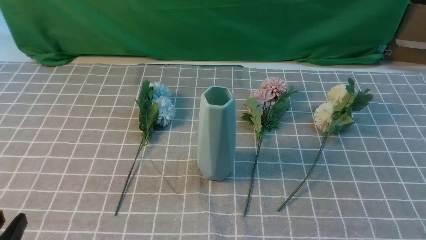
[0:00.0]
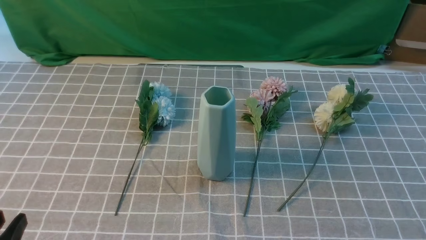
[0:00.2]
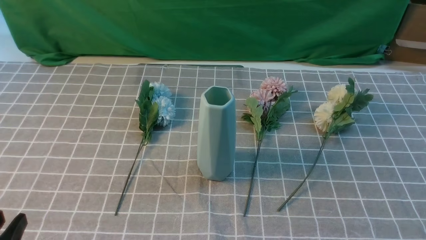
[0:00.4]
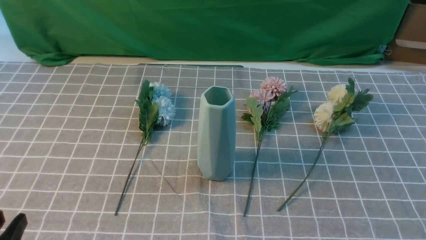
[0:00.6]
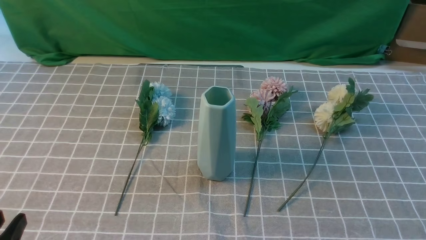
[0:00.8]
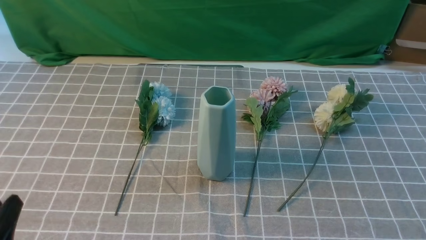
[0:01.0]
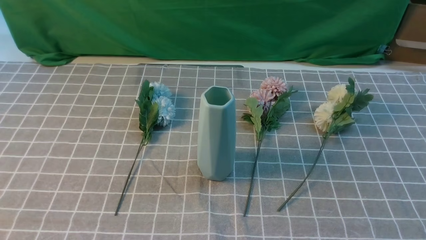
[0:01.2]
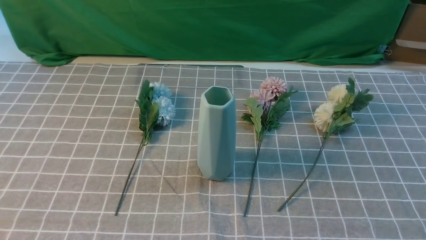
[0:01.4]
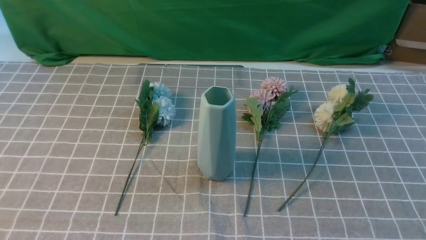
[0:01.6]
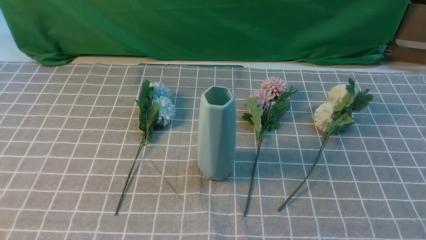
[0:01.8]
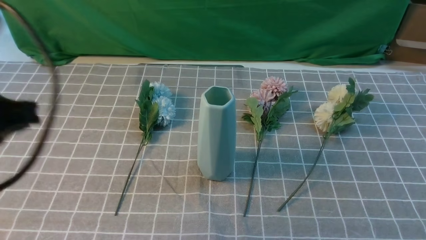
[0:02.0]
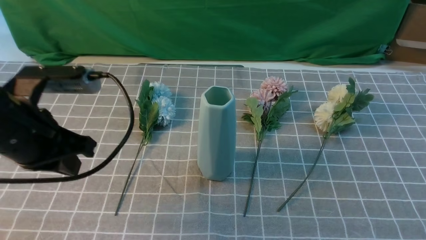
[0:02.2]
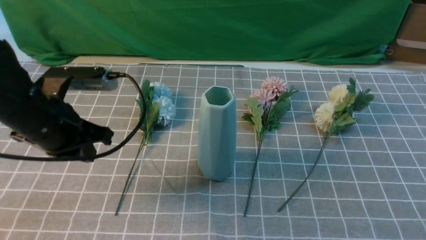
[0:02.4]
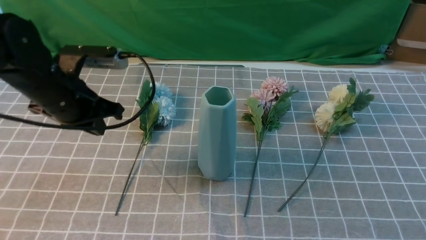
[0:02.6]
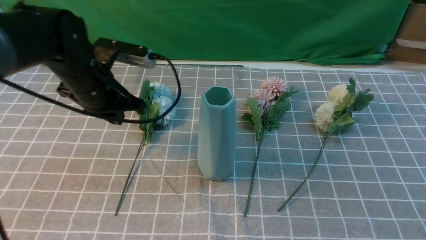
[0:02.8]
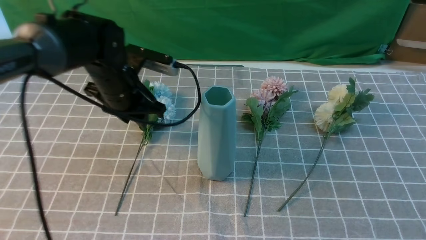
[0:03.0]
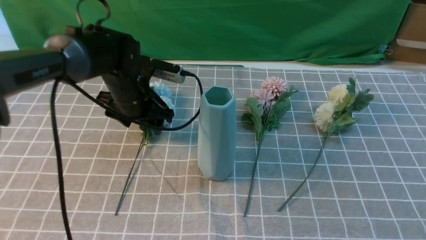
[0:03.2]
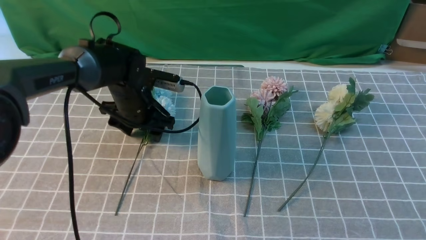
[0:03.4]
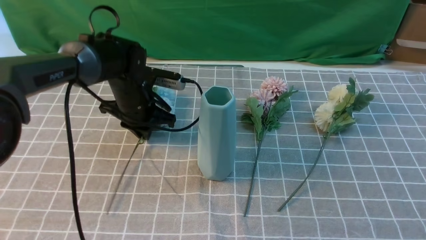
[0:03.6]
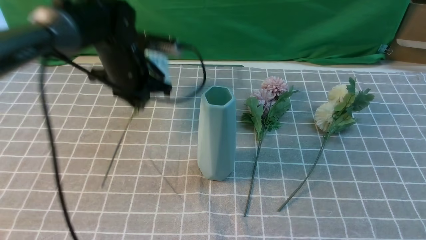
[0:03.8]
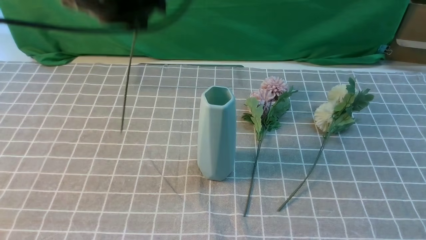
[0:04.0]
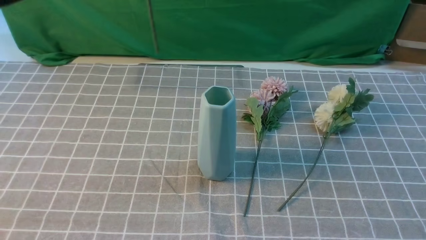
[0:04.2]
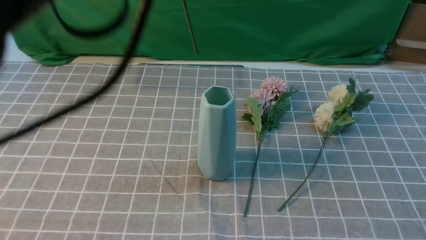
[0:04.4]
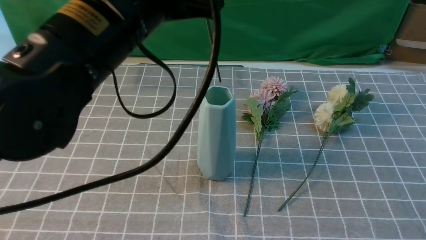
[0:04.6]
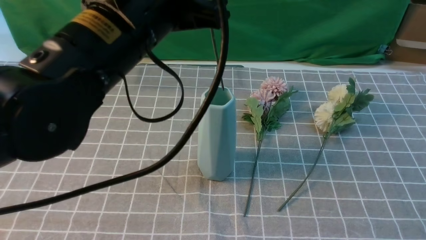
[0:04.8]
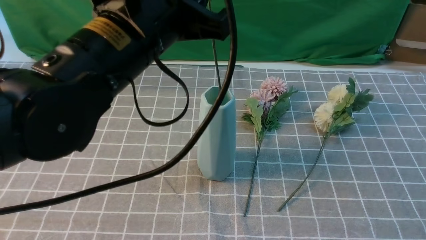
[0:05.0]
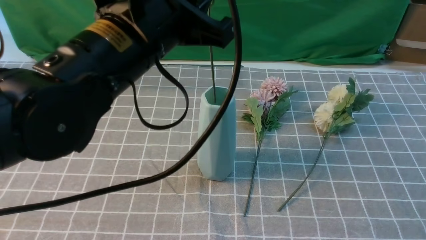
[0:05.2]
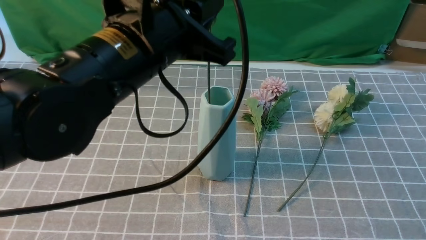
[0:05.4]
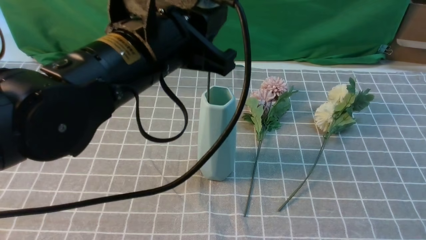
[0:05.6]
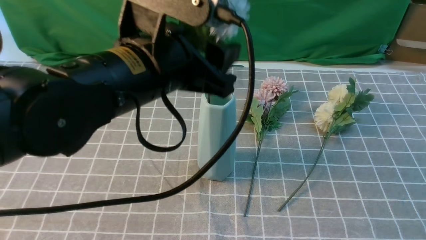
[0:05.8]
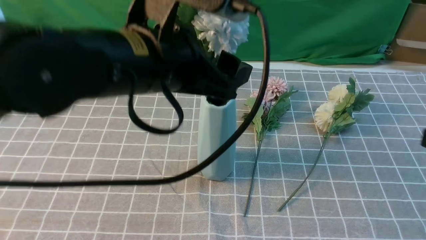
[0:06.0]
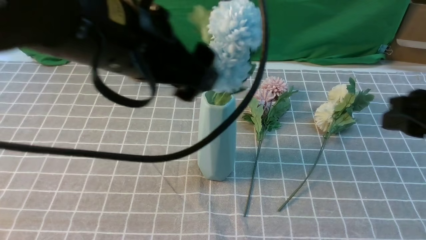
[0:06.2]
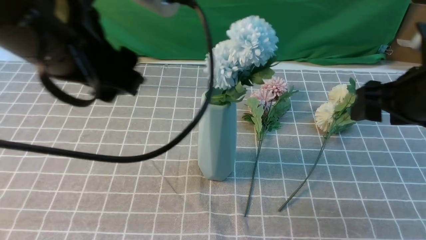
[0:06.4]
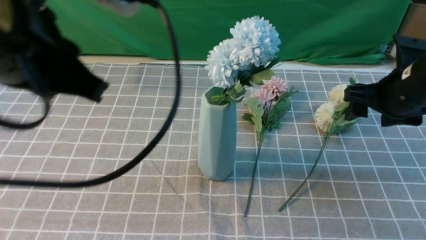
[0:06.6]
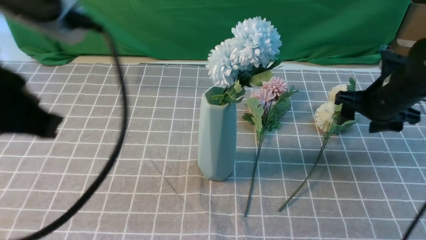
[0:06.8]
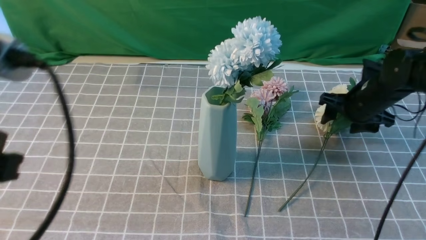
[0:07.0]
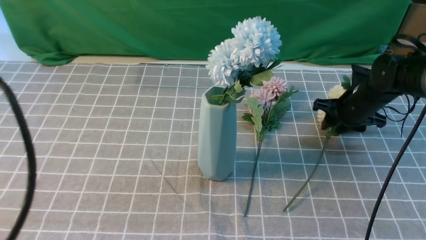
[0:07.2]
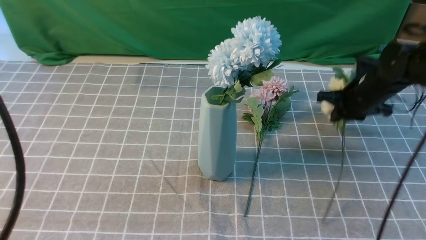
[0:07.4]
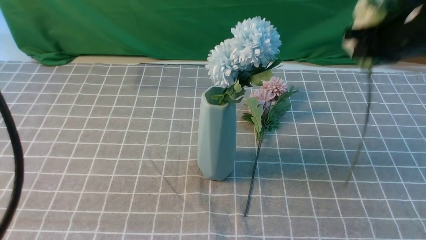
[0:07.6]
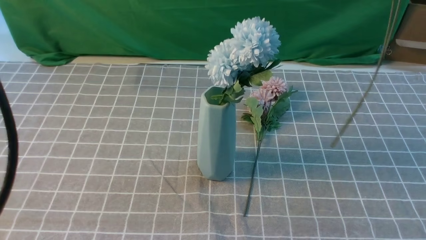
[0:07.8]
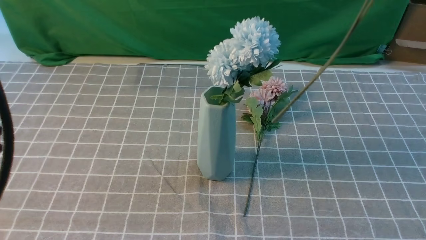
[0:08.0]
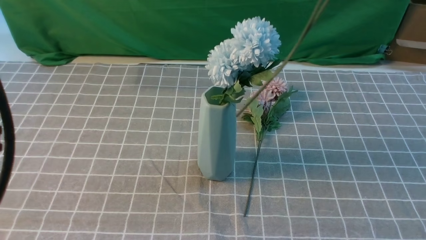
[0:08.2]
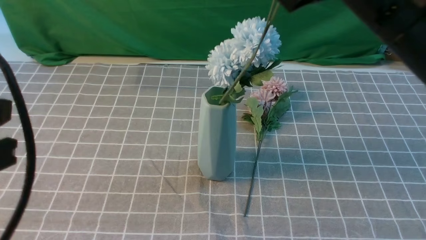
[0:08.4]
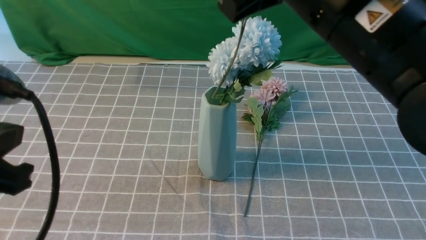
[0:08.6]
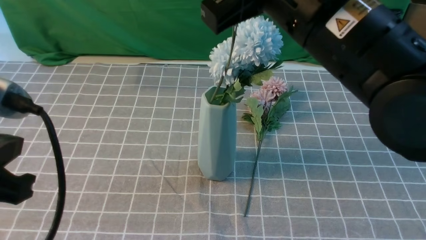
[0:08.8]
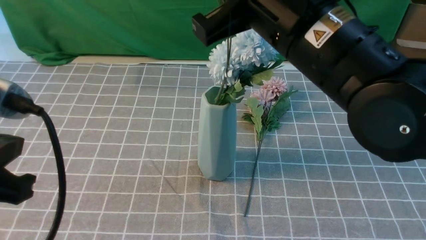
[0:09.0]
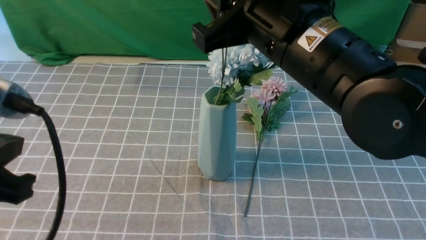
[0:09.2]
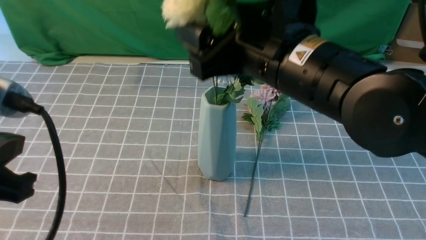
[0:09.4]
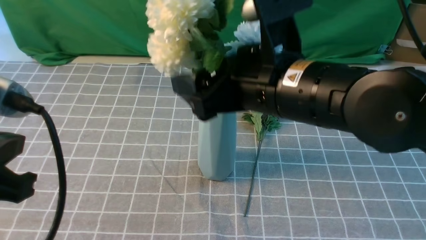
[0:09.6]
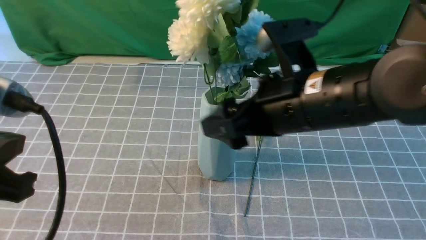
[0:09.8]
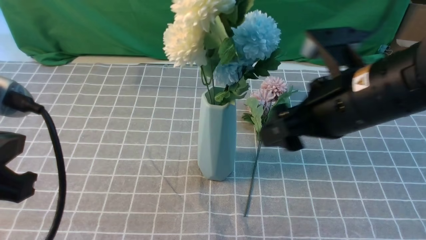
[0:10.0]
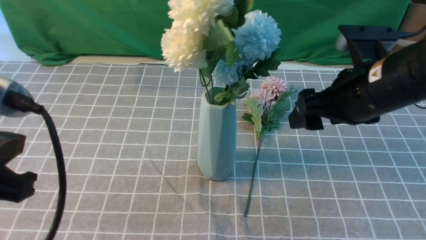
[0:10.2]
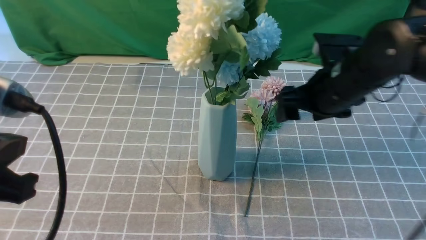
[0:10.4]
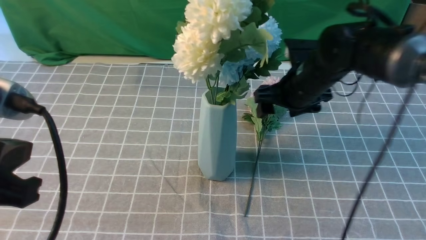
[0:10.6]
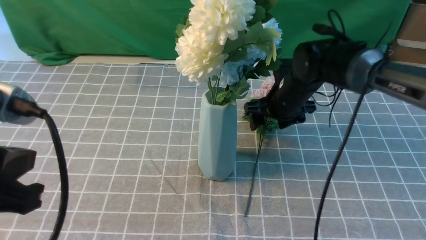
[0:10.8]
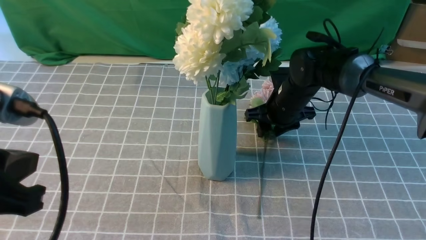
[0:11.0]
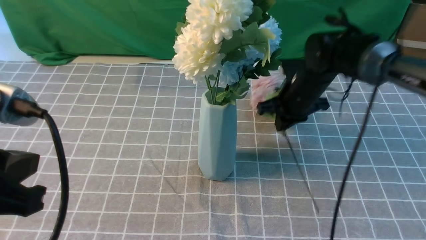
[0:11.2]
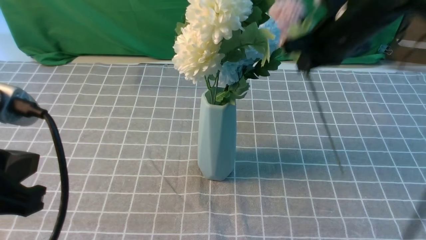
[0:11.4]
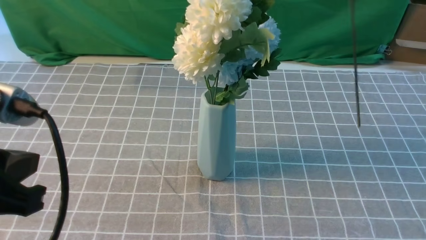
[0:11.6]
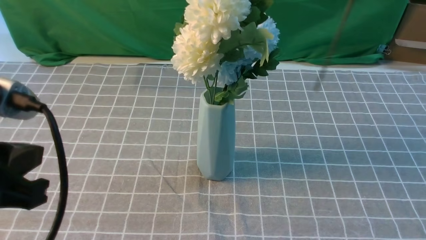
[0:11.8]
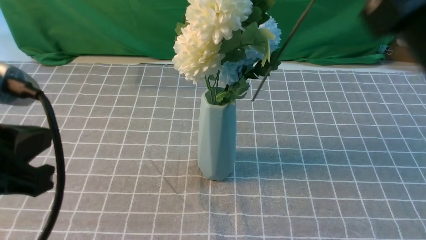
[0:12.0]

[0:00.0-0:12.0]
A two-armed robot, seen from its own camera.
Task of the whole recording: insert the flowers into the vase on the table with the grey tablecloth.
Step, 0:00.0 to 0:03.6: use the left arm to grab a bunch of fresh flowers.
Step, 0:03.8 to 0:06.2: use the left arm to insert the flowers into the vase.
Step, 0:06.4 to 0:07.2: use the right arm to grab a bunch of fresh flowers.
Step, 0:07.4 to 0:09.8: use the right arm to insert the flowers into the vase.
Step, 0:10.0 to 0:11.0: use the right arm to grab a bunch of fresh flowers.
0:01.6 to 0:03.0: The left gripper shifts approximately 35 cm forward, and opens up. Meanwhile the right gripper moves upward, roughly 10 cm.
0:03.0 to 0:04.4: The left gripper is displaced upward and backward by about 25 cm, and closes its fingers.
0:04.4 to 0:06.0: The left gripper moves downward, about 5 cm, and opens. The right gripper moves forward, about 5 cm.
0:06.0 to 0:07.6: The right gripper moves forward, approximately 20 cm, and opens, then closes once more. Meanwhile the left gripper goes roughly 20 cm to the left and backward, and closes its fingers.
0:07.6 to 0:09.0: The right gripper is displaced to the left and backward by approximately 20 cm.
0:09.0 to 0:10.4: The right gripper shifts about 20 cm downward, forward and to the right, and opens.
0:10.4 to 0:12.0: The right gripper swings up and down, approximately 30 cm each way, with 2 reversals, and closes.

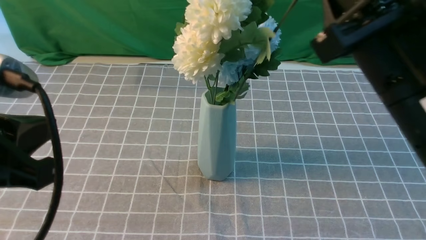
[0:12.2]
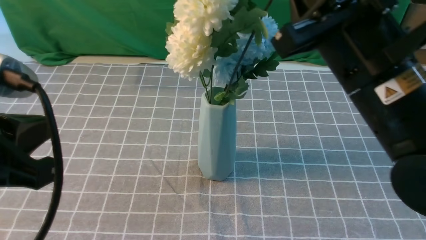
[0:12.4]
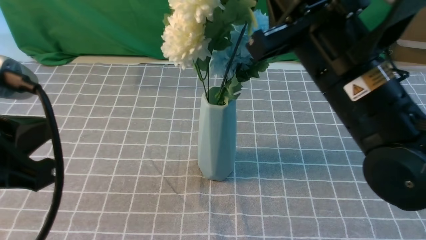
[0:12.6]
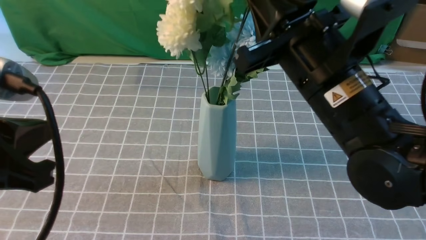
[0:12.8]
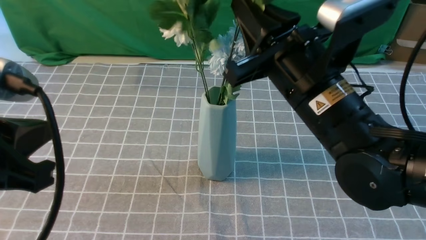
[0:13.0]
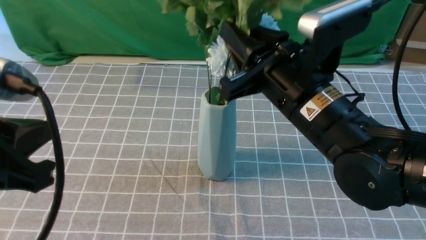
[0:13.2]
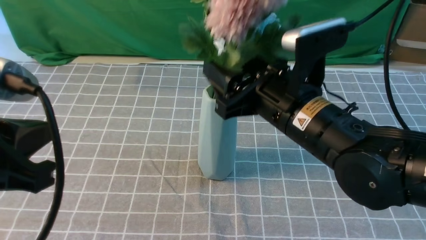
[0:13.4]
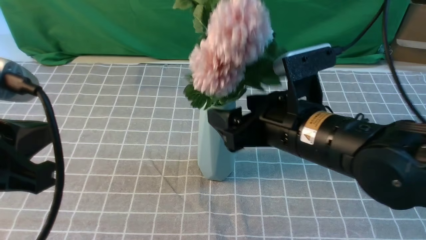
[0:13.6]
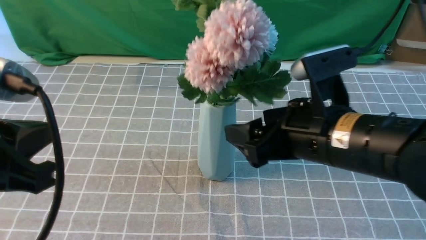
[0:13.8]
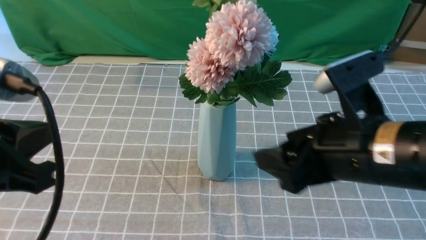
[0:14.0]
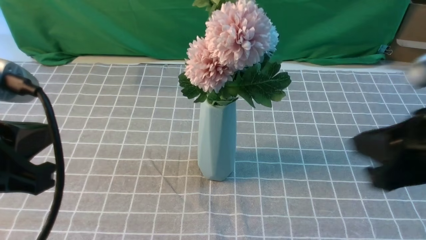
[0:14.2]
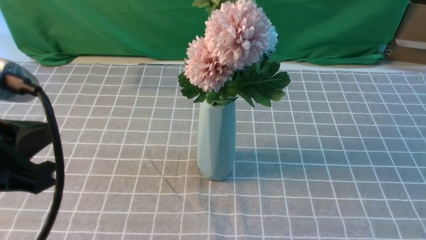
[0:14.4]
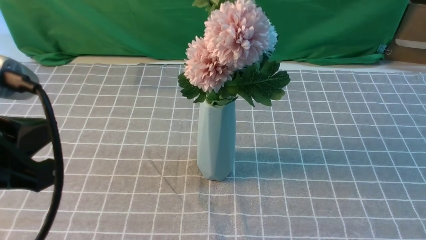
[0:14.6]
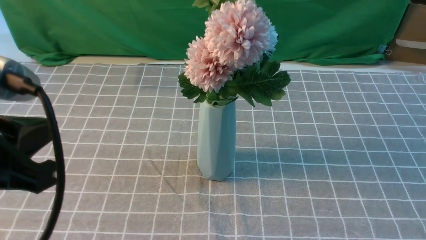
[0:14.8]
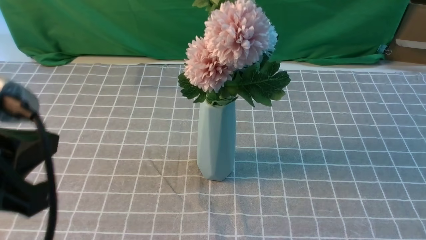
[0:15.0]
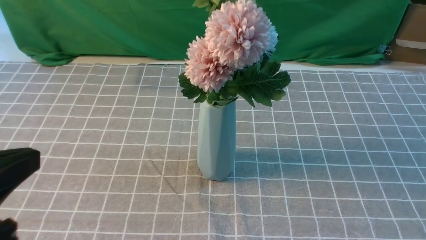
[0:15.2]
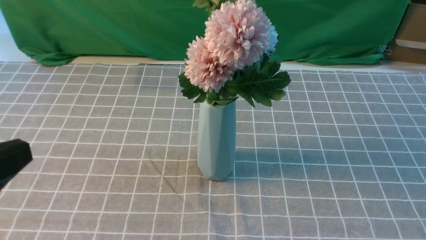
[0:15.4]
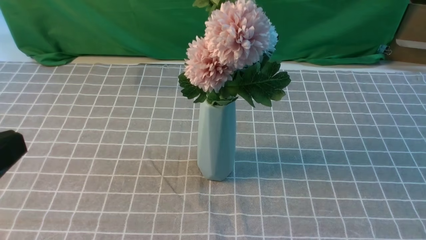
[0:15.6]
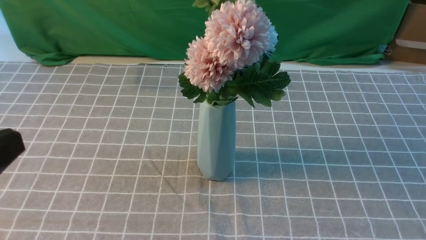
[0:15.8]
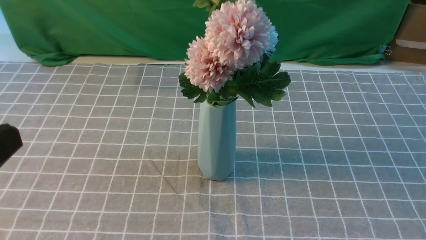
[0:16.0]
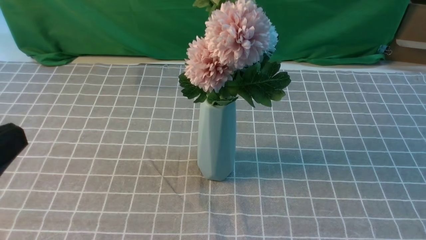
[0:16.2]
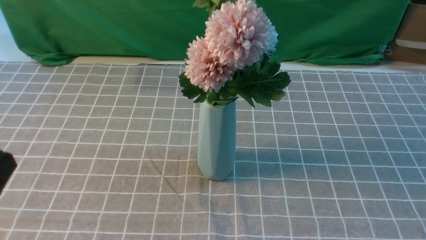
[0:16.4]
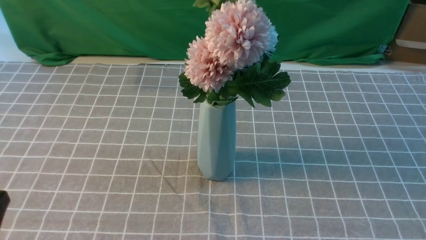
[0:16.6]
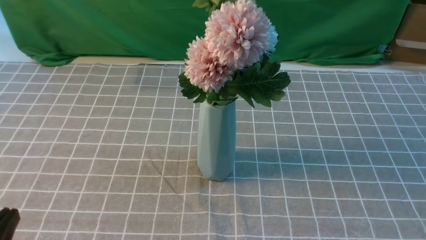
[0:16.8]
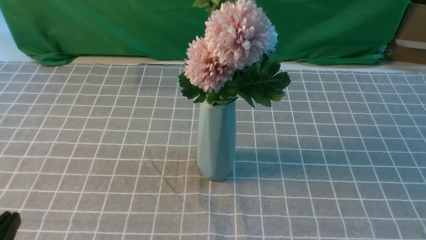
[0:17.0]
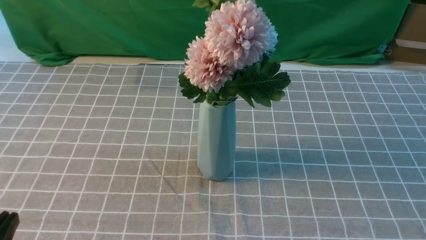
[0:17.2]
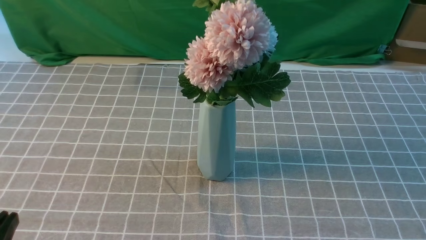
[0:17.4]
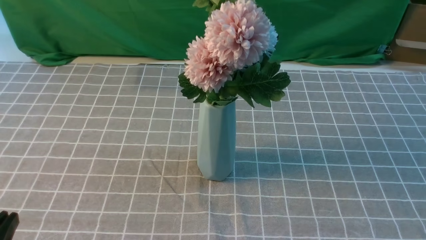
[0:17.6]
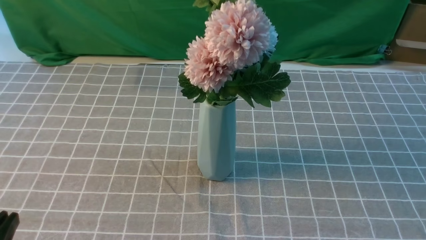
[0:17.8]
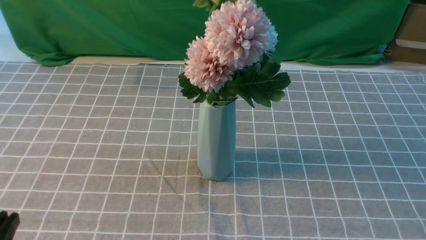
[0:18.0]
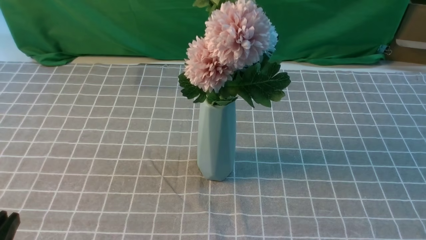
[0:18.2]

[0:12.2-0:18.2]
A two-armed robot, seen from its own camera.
Task of the whole recording: insert the flowers into the vase on the table with the grey tablecloth.
Step, 0:12.2 to 0:13.8: use the right arm to insert the flowers into the vase.
0:12.2 to 0:13.8: The right gripper travels downward by some 10 cm, and opens its fingers.
0:13.8 to 0:15.2: The right gripper heads backward and to the right, covering roughly 30 cm, and closes.
0:15.2 to 0:16.6: The left gripper moves downward, some 10 cm.
